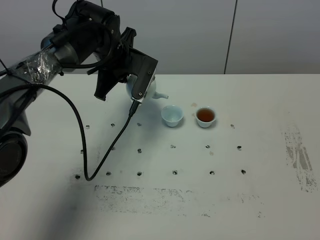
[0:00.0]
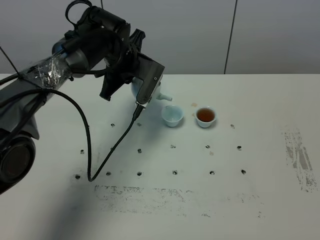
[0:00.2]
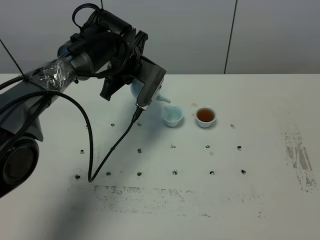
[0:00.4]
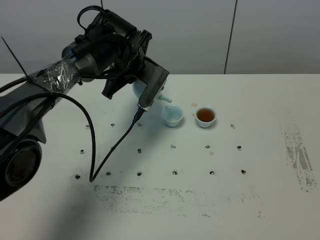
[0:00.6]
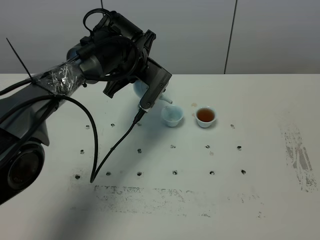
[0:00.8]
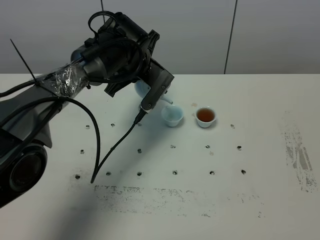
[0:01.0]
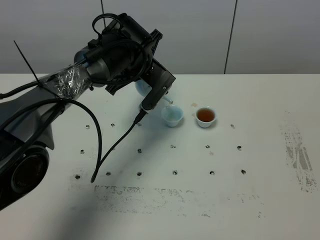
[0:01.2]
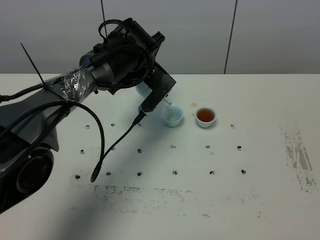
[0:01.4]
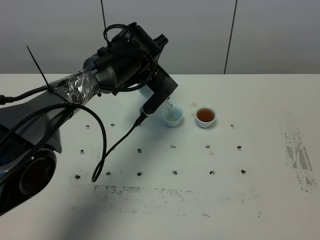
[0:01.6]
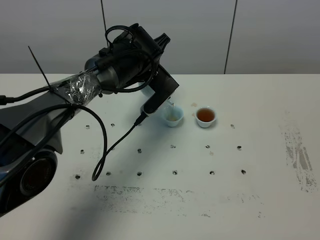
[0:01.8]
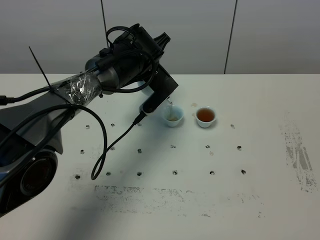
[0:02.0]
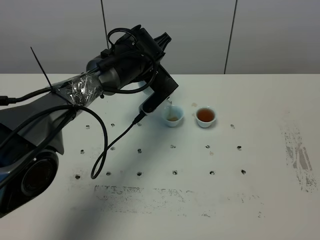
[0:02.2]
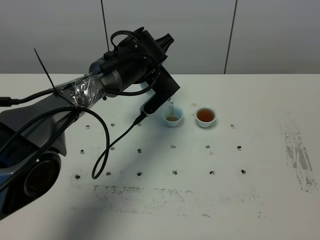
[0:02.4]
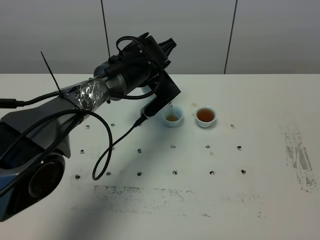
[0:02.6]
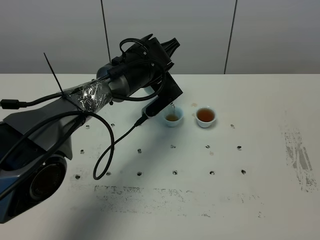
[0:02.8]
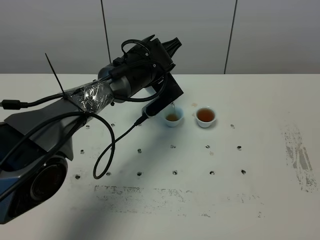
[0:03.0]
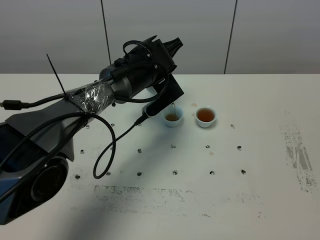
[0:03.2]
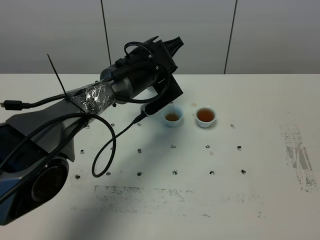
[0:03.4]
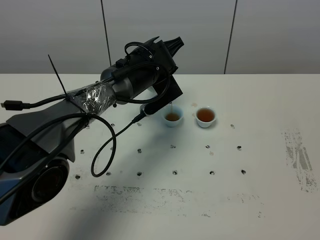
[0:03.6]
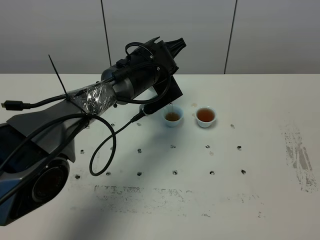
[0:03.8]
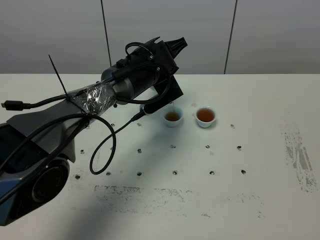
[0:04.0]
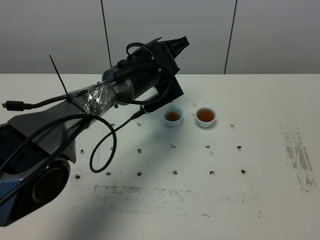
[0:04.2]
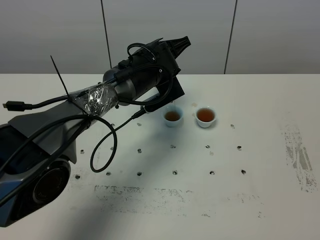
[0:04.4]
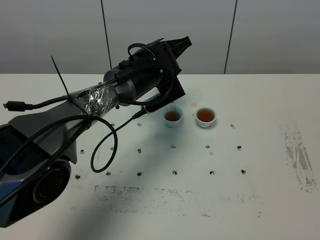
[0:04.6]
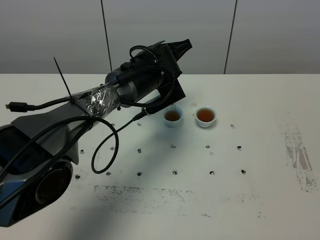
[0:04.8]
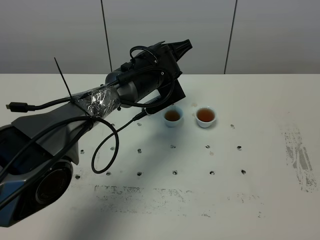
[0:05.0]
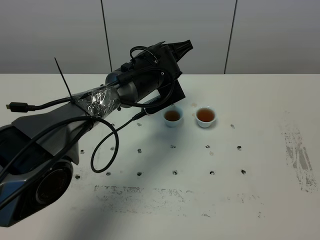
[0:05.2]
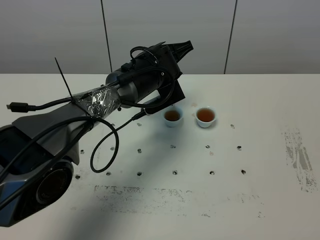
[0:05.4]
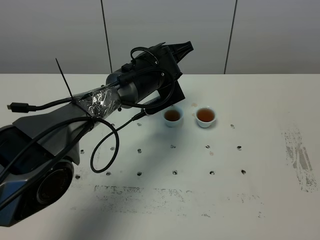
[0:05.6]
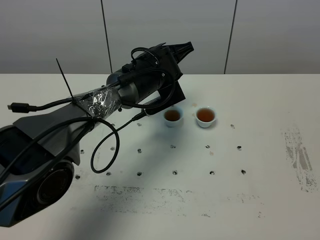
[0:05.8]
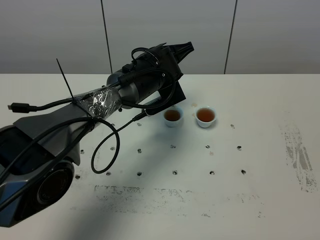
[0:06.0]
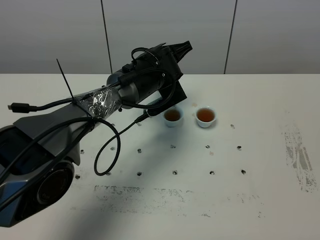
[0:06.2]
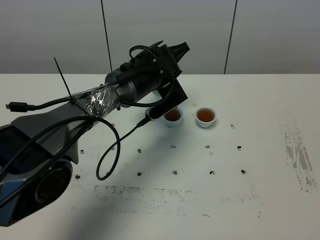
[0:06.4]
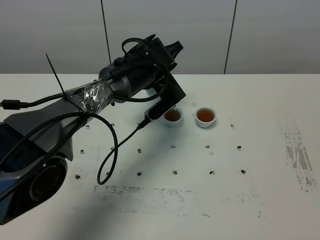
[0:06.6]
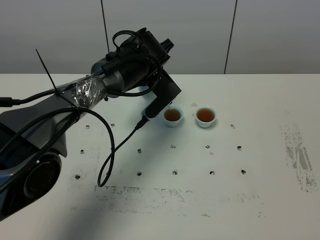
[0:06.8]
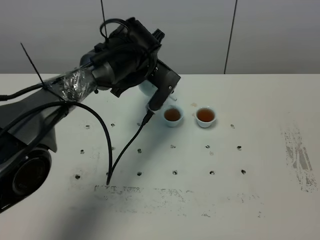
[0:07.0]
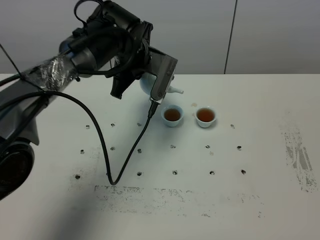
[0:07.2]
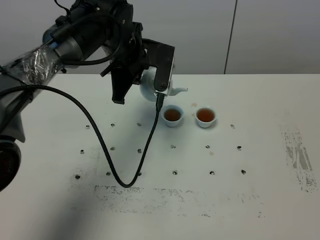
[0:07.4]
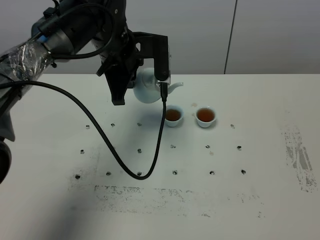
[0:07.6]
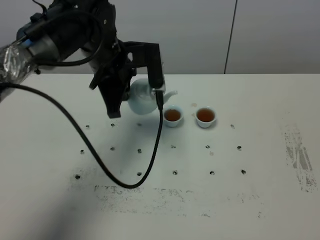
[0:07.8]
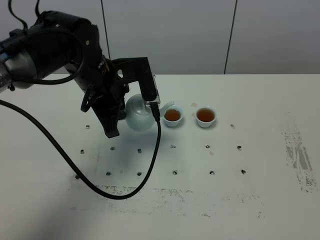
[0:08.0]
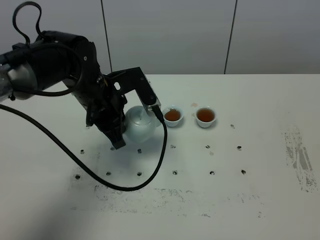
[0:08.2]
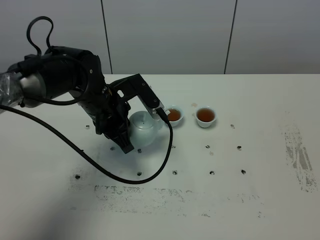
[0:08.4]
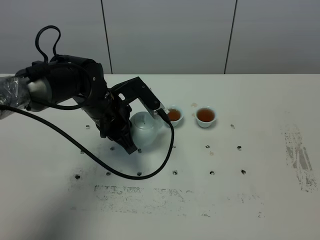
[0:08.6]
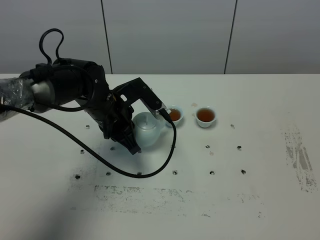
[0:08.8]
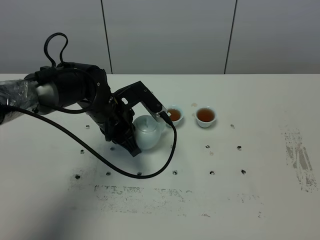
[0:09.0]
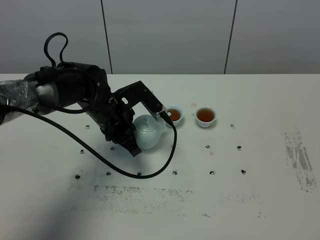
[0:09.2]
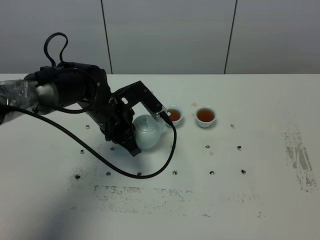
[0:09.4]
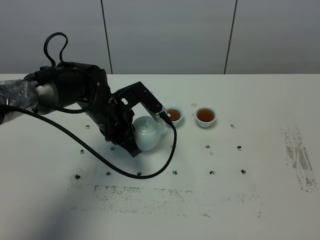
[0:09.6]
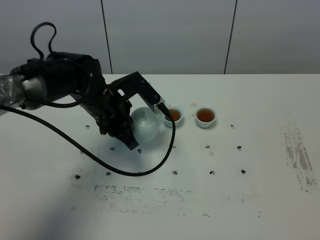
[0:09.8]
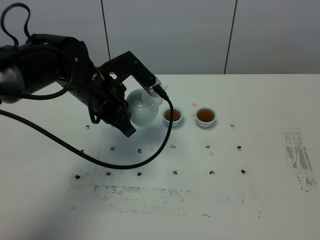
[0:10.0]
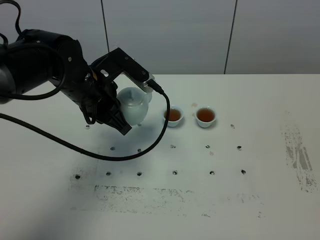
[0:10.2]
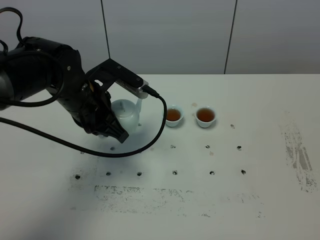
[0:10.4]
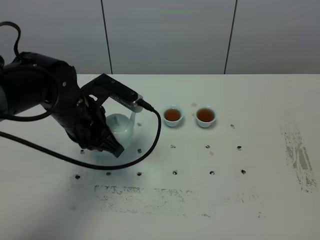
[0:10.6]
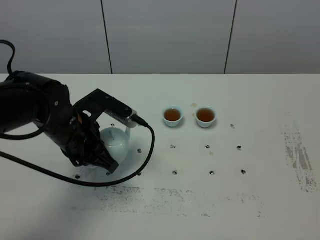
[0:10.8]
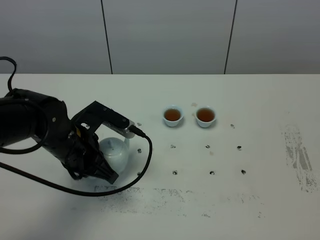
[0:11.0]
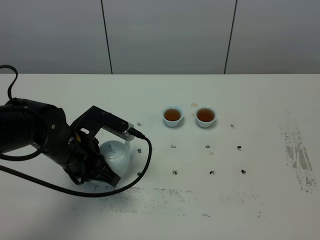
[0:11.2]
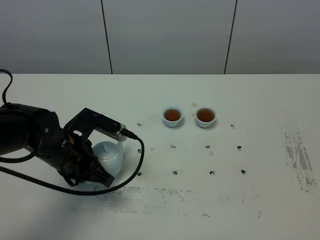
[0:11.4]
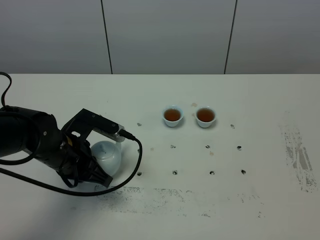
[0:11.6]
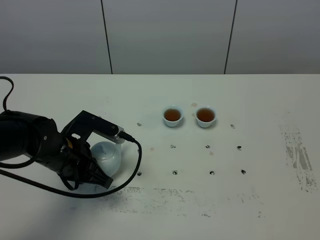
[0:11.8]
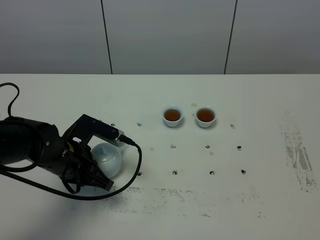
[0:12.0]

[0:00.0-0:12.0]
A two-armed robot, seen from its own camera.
Task of the whole recording: grasp the blue porcelain teapot and pour the tea into the two blue porcelain teacups one by one, put the blue porcelain teapot back in its original place.
Step, 0:00.0 to 0:07.0: Pour tea into the teacup with the left gripper.
0:00.0 to 0:01.6: The left gripper goes approximately 5 cm to the right.
0:01.6 to 0:03.0: There are only small adjustments of the grippers.
0:03.0 to 0:04.4: The grippers move only a little.
0:04.4 to 0:06.0: Neither gripper changes place.
0:06.0 to 0:07.6: The left gripper shifts approximately 10 cm to the left and upward.
0:07.6 to 0:09.0: The left gripper goes approximately 10 cm downward.
0:09.0 to 0:10.4: The left gripper moves upward, approximately 5 cm.
0:10.4 to 0:12.0: The left gripper moves downward and backward, roughly 10 cm.

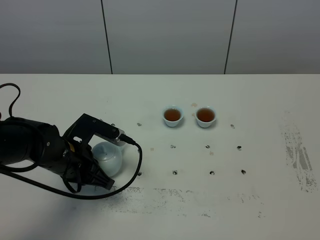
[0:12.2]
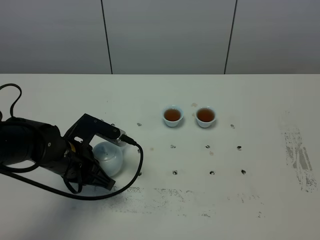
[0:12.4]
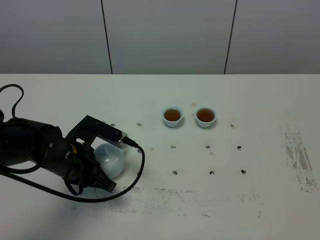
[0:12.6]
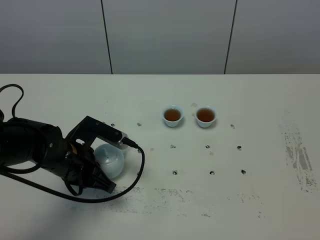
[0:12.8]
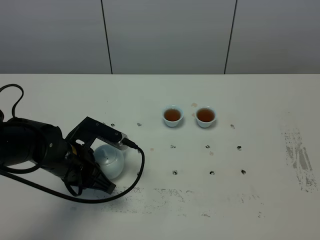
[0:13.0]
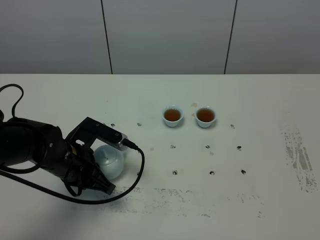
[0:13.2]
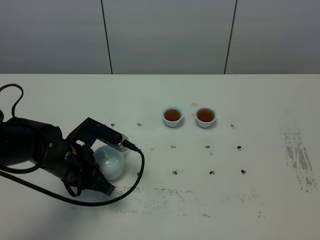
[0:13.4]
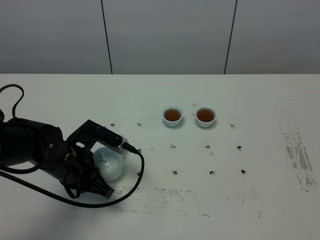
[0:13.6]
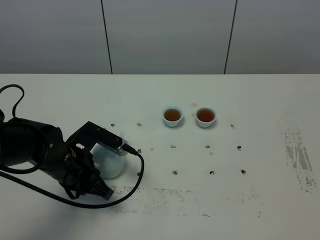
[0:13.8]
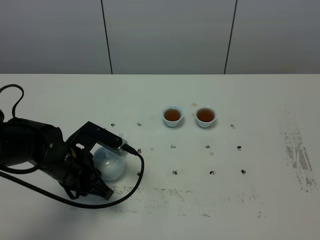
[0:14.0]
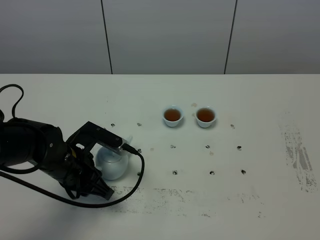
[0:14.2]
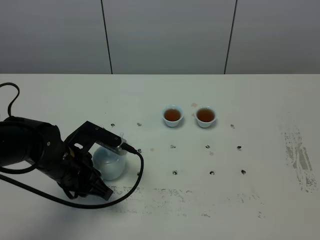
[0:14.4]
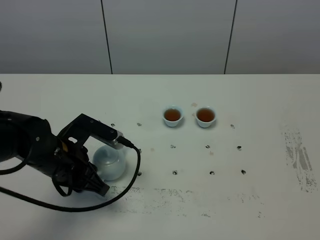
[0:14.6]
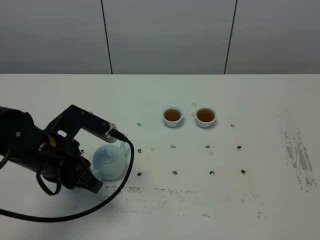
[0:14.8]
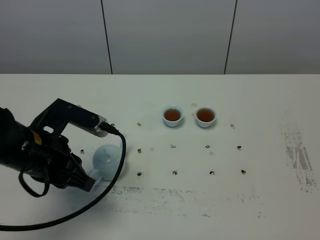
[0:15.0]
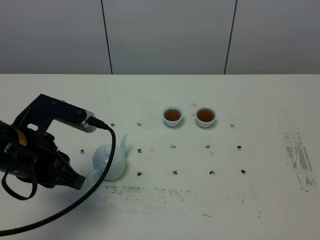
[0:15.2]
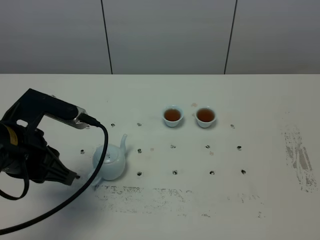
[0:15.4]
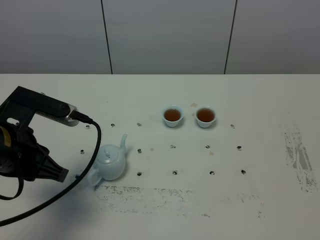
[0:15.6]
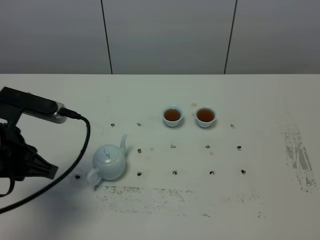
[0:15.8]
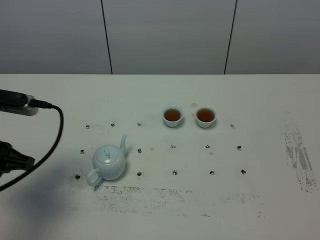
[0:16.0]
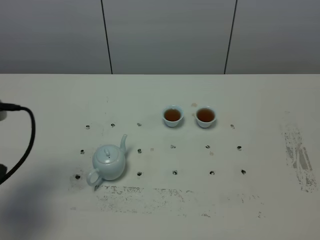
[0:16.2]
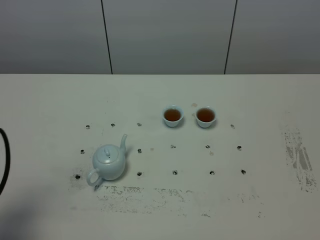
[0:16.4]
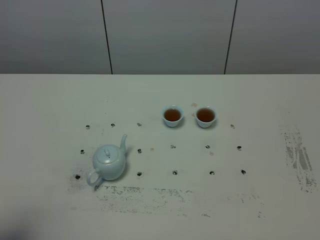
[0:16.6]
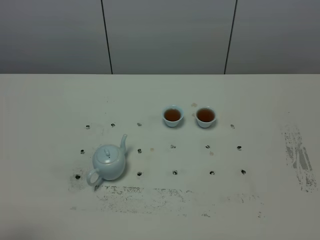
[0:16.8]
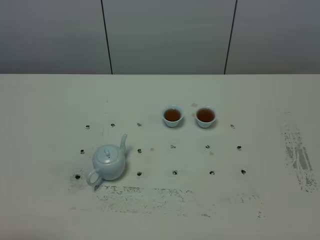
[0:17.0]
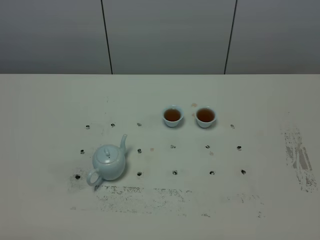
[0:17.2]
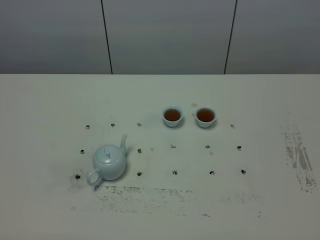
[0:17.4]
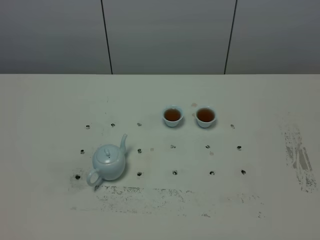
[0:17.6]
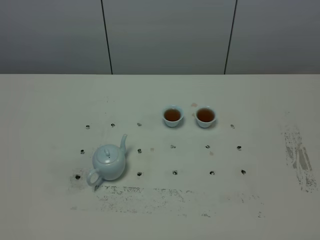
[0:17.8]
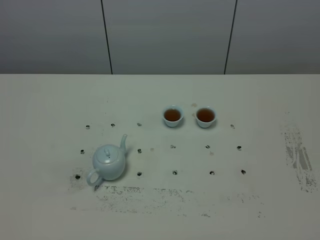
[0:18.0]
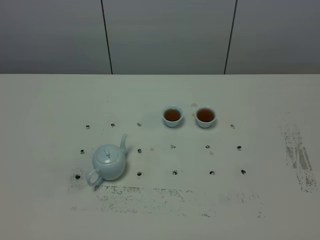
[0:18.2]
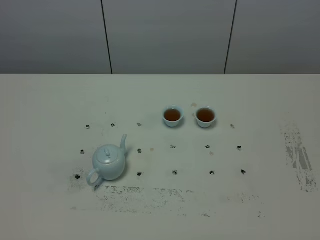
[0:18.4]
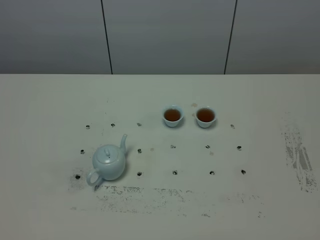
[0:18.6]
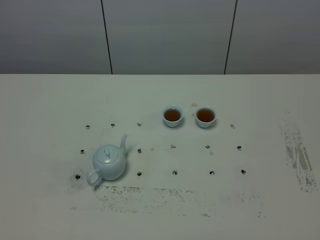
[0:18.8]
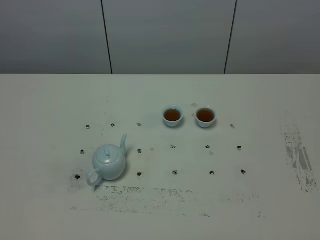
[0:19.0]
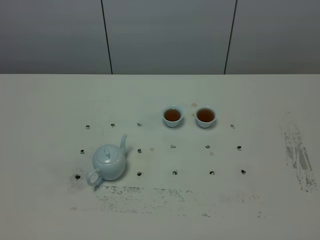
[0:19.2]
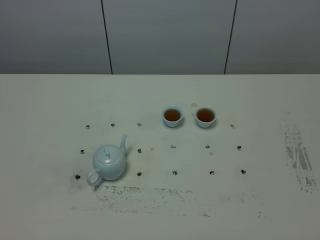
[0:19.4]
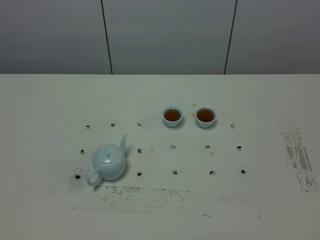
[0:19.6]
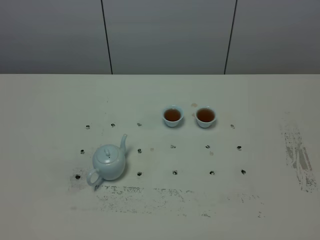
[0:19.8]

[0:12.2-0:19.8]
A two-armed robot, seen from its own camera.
Task of the whole recording: grasp the blue porcelain teapot and pour the tea into the two blue porcelain teacups one by one, put the blue porcelain teapot back in its original place.
0:12.2 to 0:13.8: The grippers make only small movements.
0:13.8 to 0:15.2: The left gripper heads upward and backward, covering approximately 15 cm.
0:15.2 to 0:16.8: The left gripper moves backward and to the left, roughly 20 cm.
0:18.2 to 0:19.8: Both grippers stay put.

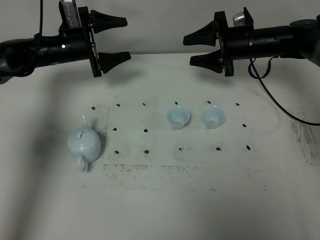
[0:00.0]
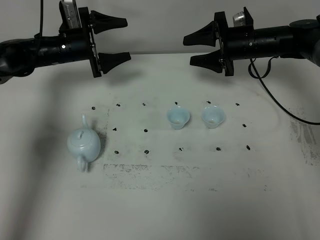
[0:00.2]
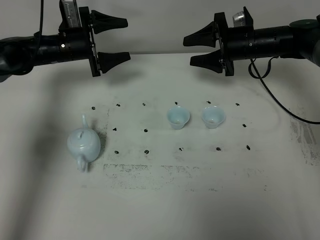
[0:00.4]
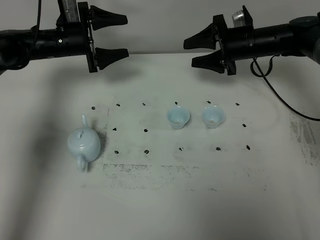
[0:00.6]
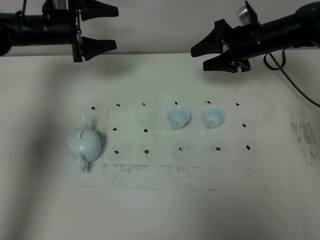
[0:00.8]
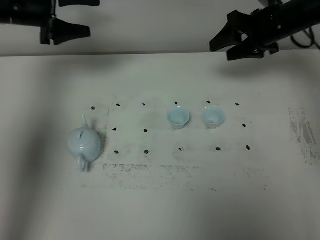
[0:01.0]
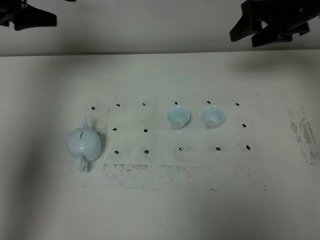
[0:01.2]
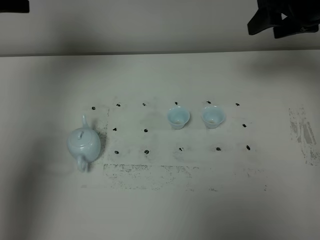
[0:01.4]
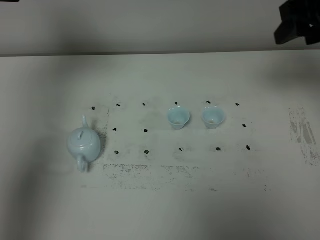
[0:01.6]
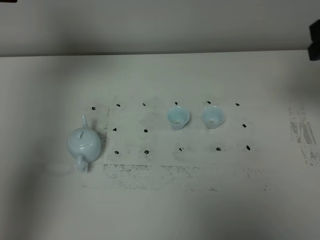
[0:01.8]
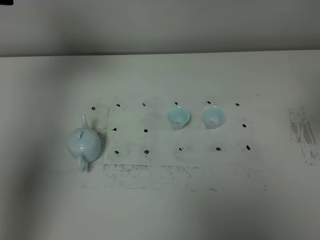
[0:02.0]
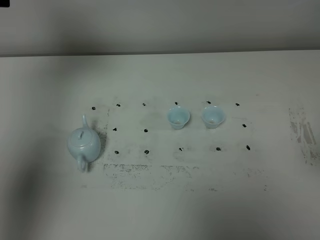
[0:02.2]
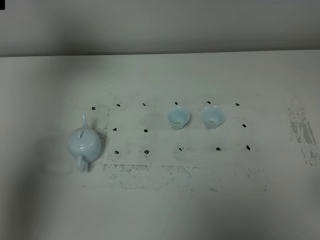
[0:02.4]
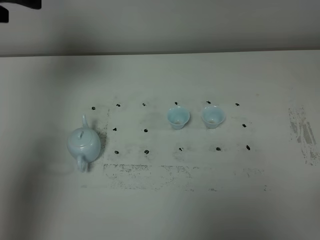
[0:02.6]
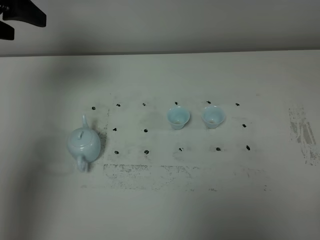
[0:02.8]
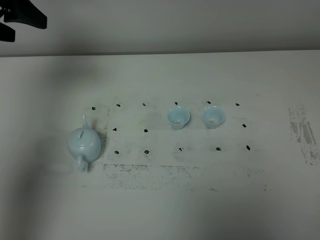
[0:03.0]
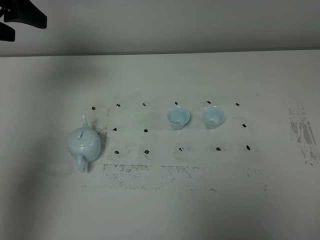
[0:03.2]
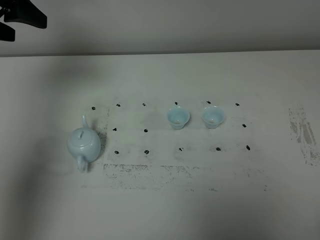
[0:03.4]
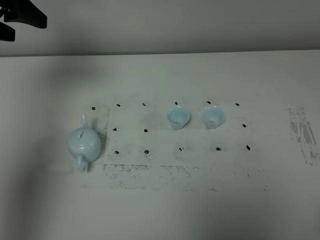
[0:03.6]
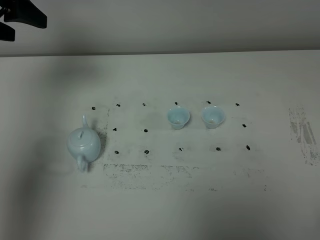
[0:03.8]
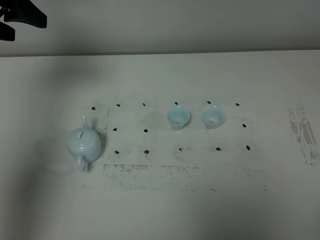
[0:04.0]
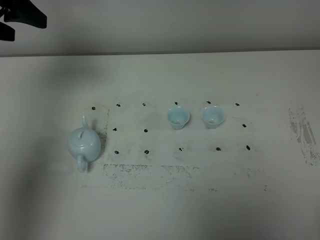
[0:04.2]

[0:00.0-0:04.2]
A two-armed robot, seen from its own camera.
Task of the whole recording: grasp the blue porcelain teapot and pour the tea into the two blue porcelain teacups one by one, put the blue porcelain teapot back in its original place.
0:00.0 to 0:01.4: Both grippers travel together upward and backward, about 25 cm.
0:01.4 to 0:02.8: The right gripper travels backward by roughly 40 cm.
